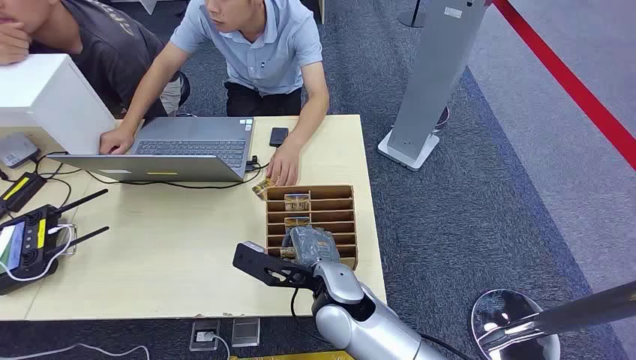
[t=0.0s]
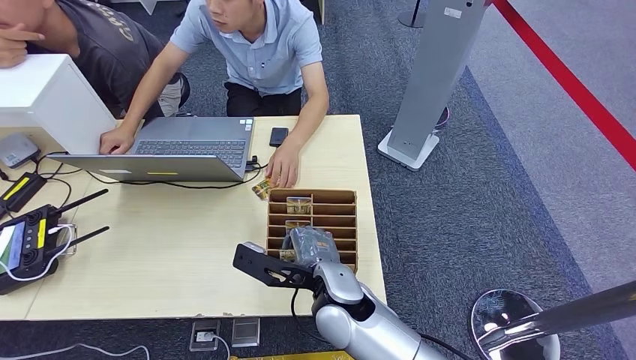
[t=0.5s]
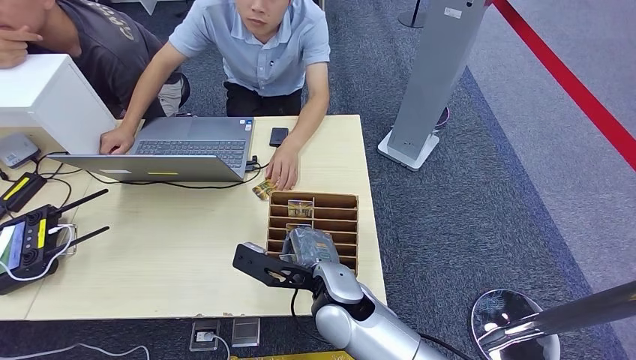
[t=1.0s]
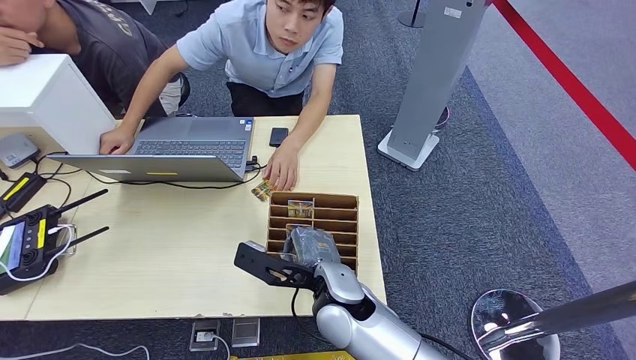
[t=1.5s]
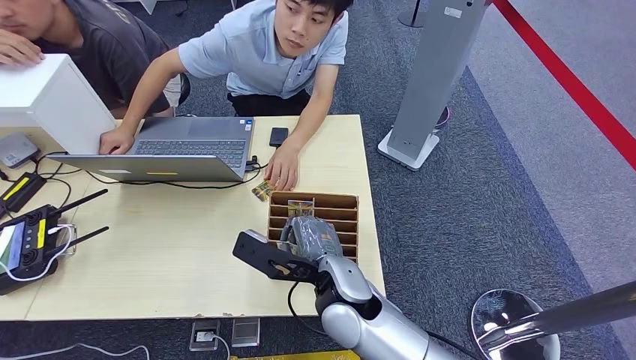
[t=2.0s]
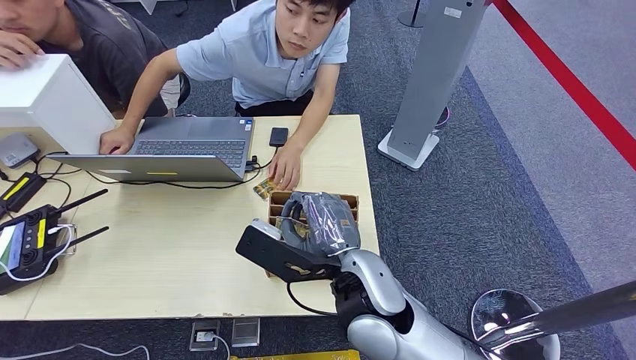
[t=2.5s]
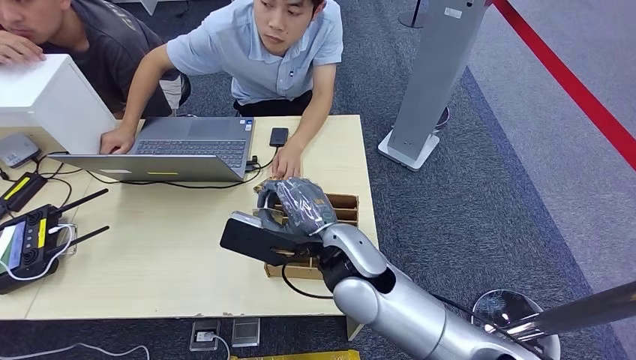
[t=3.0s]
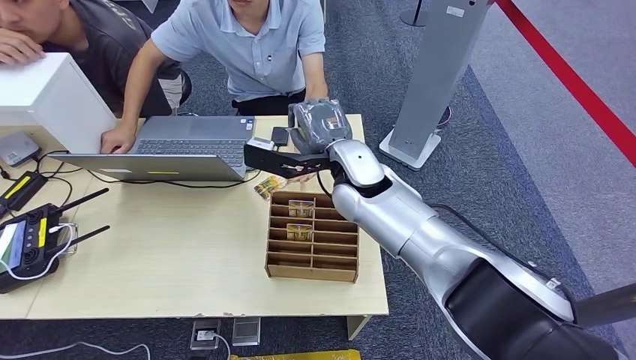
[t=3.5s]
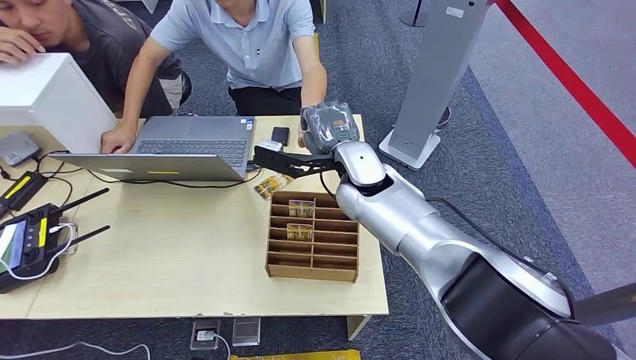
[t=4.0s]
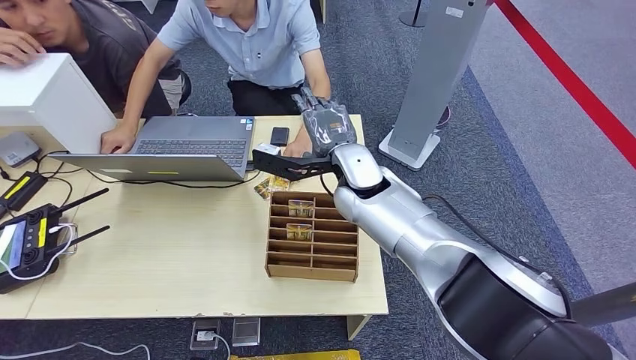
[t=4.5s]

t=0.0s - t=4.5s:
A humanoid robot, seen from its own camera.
Step, t=0.0s - t=2.5s: Pick up the key card from the card box.
Step, t=3.0s - t=4.5s: Hand the key card to the target.

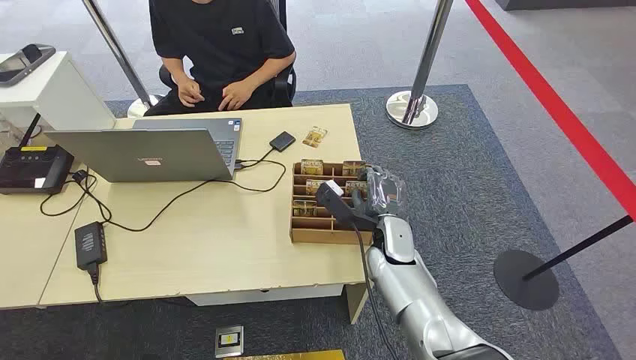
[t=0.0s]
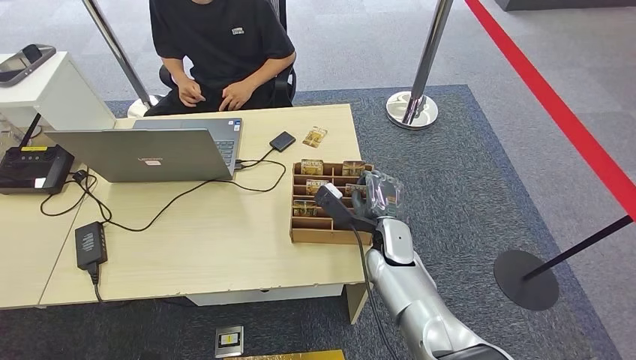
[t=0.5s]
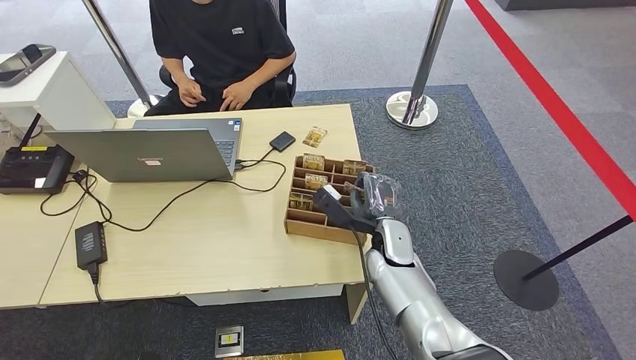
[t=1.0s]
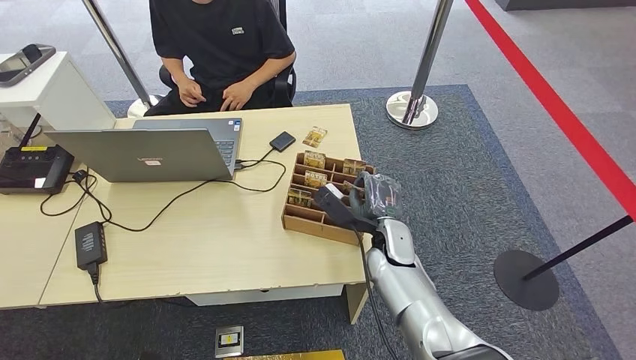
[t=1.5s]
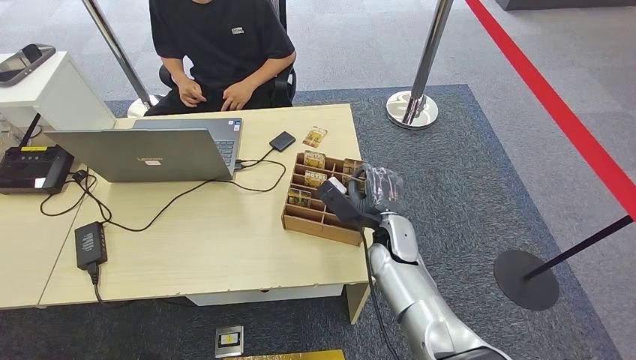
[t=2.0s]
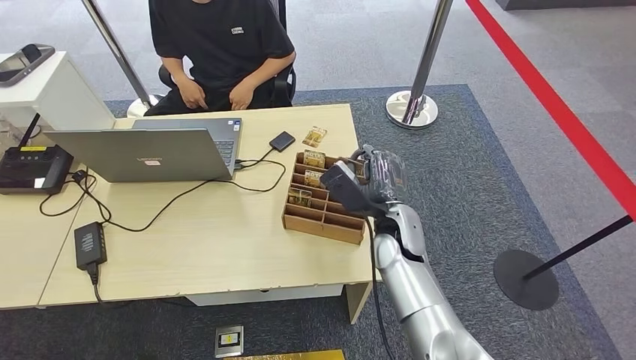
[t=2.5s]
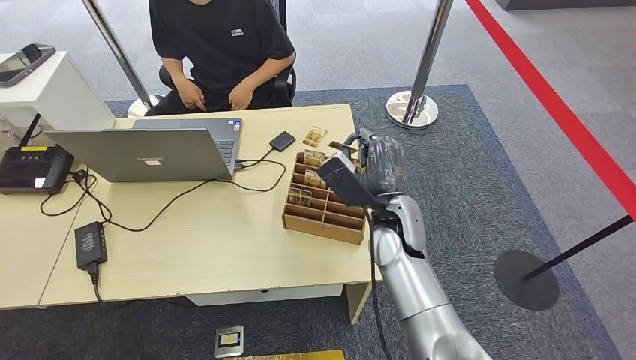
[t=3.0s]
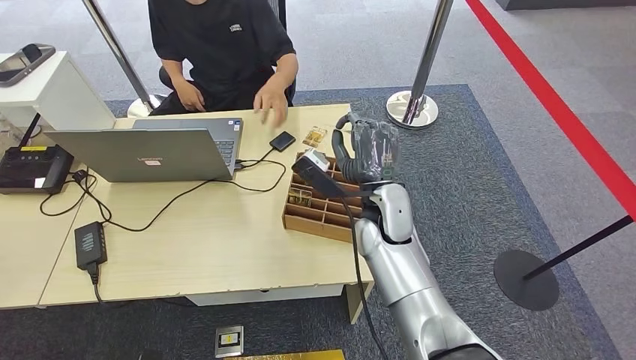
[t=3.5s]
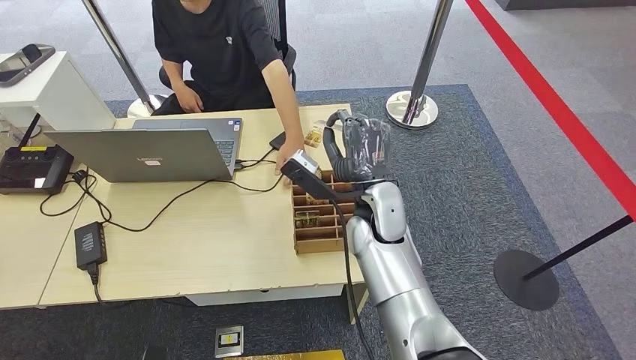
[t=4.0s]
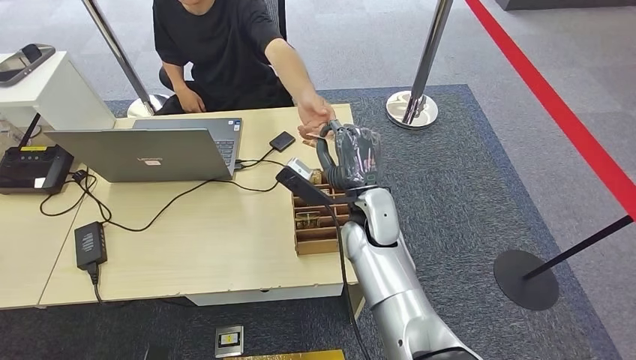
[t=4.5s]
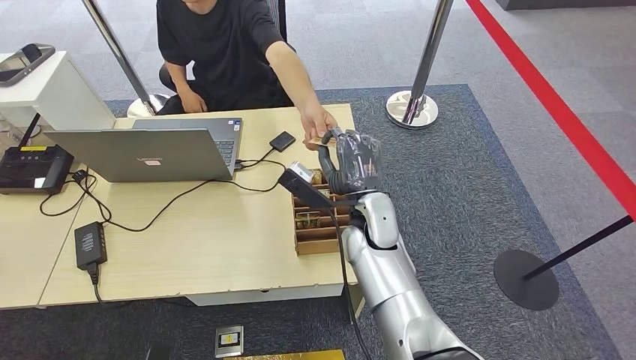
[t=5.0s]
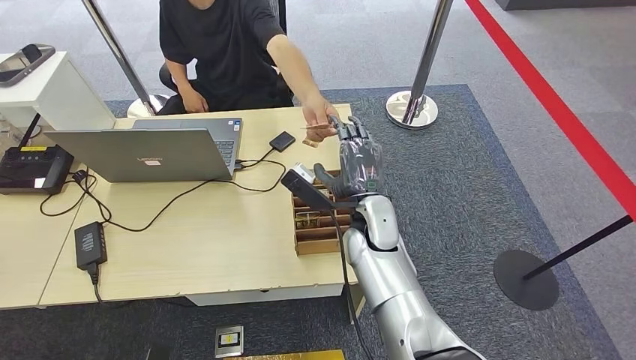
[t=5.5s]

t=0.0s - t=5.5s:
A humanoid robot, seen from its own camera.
Step, t=0.0s - t=3.5s: Pick up the key card from the card box.
Step, t=4.0s - t=5.5s: Hand the key card to the target.
t=2.0s - t=3.5s: The right hand is displaced upward by about 10 cm.
t=3.5s - t=5.5s: The hands make only small movements.

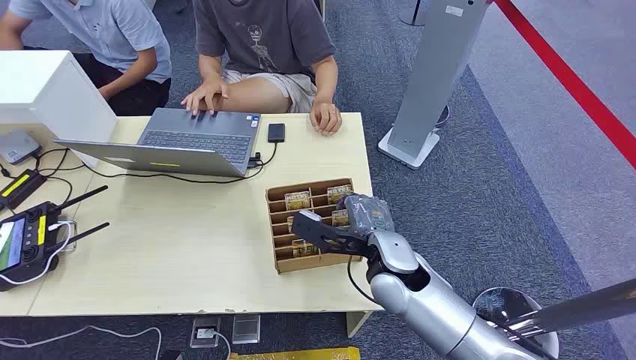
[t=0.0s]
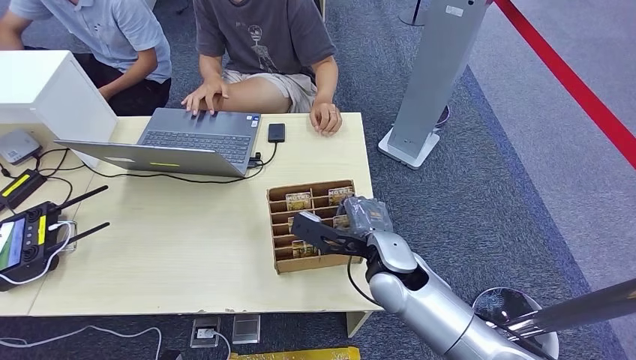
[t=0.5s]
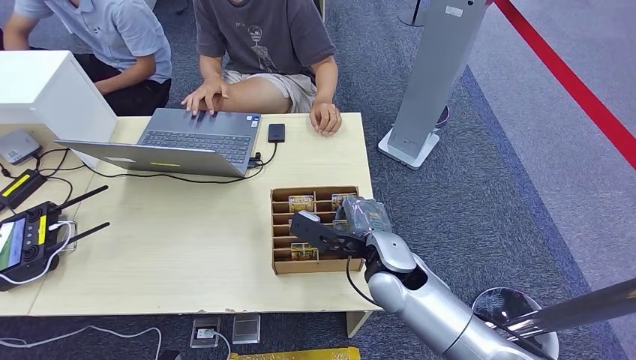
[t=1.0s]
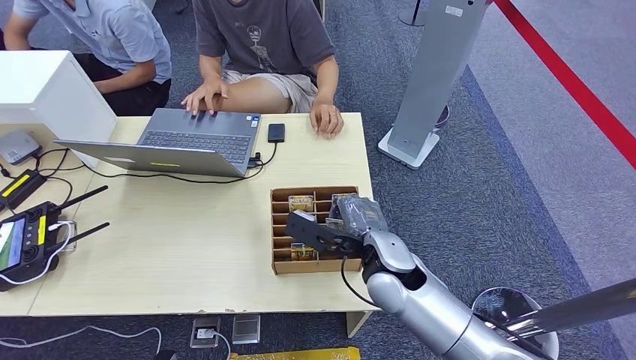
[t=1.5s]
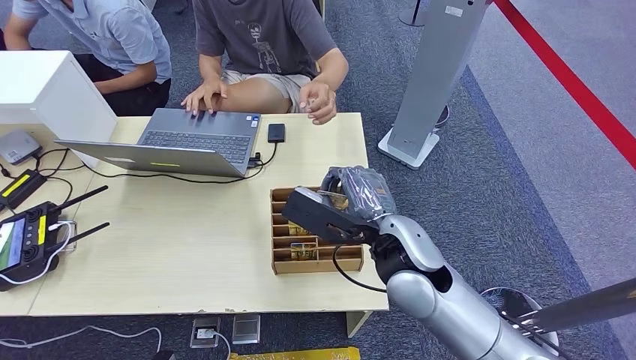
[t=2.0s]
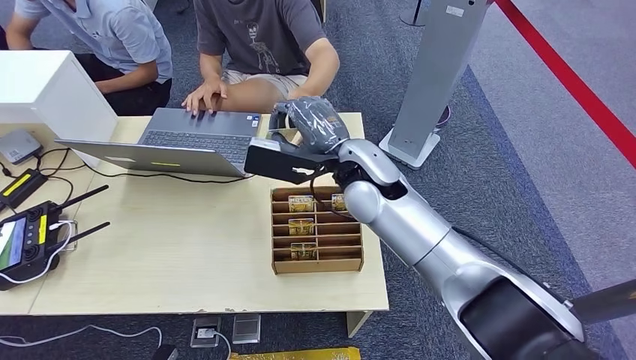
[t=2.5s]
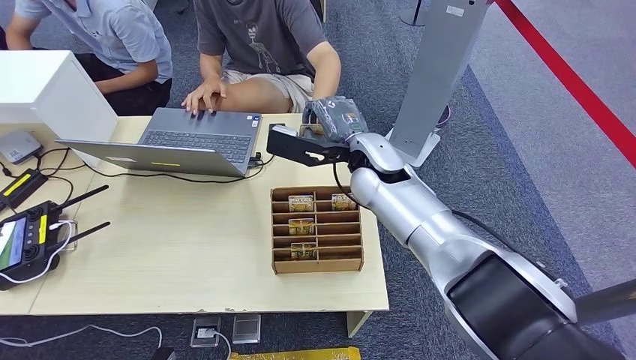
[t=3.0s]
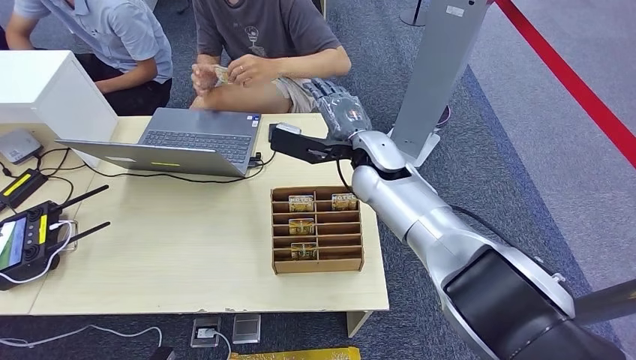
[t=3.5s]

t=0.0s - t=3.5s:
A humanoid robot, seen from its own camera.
Step, t=0.0s - t=1.5s: Pick up the key card from the card box.
Step, t=2.5s - t=3.5s: Hand the key card to the target.
t=2.0s - t=3.5s: The right hand is displaced forward by approximately 15 cm.
